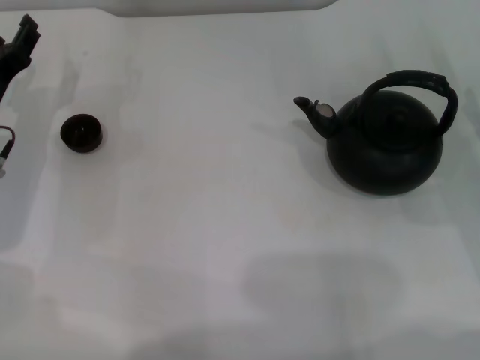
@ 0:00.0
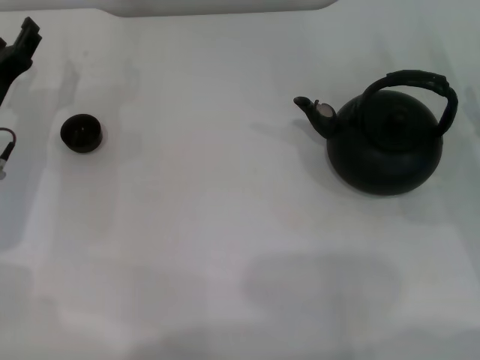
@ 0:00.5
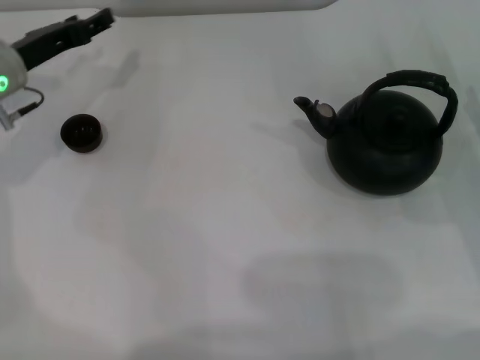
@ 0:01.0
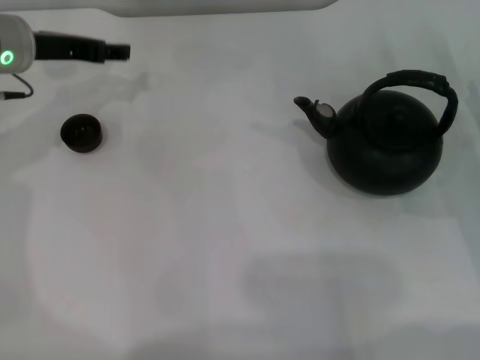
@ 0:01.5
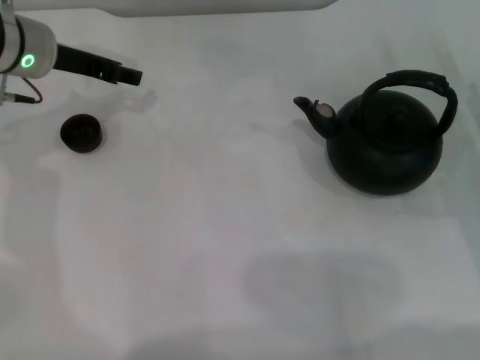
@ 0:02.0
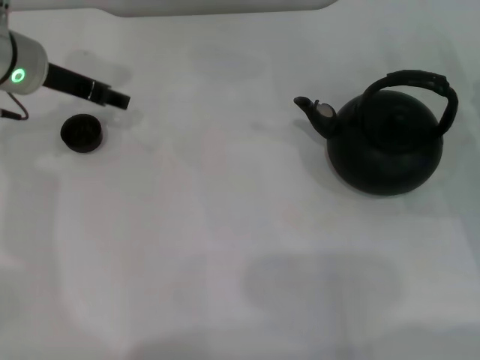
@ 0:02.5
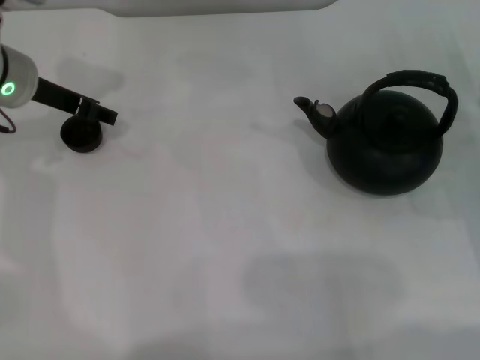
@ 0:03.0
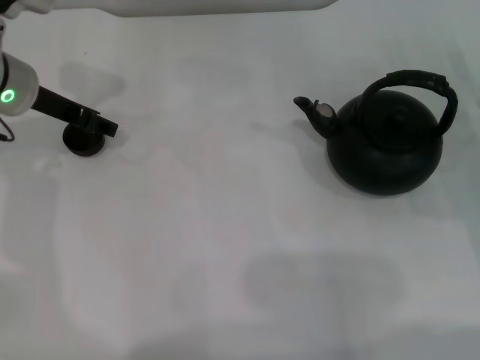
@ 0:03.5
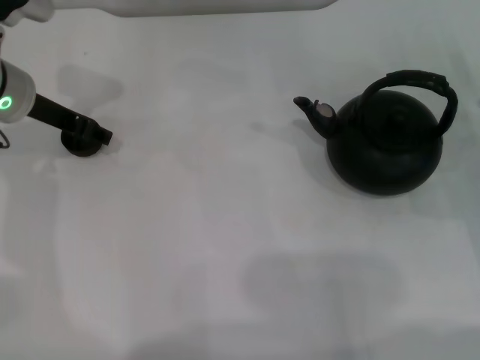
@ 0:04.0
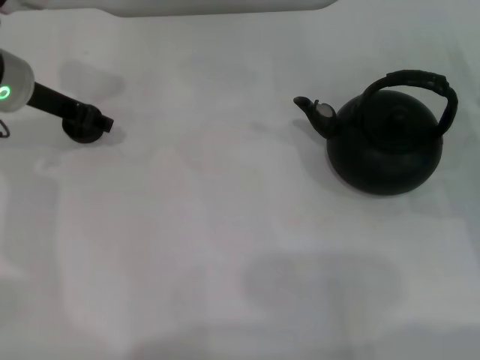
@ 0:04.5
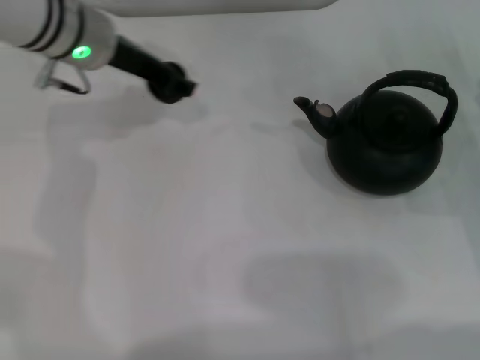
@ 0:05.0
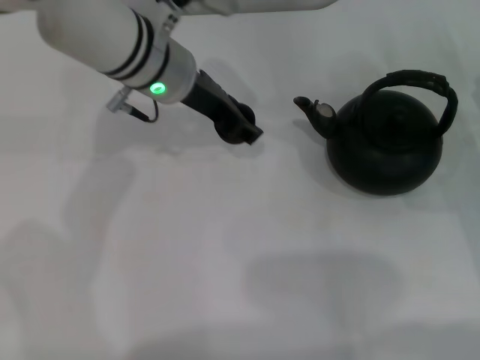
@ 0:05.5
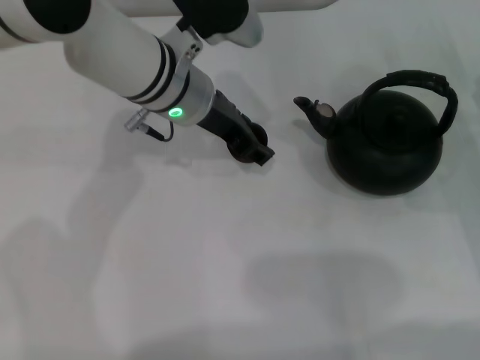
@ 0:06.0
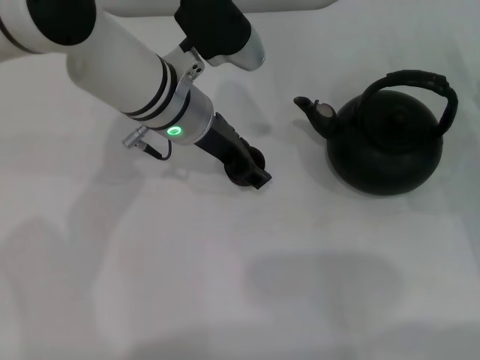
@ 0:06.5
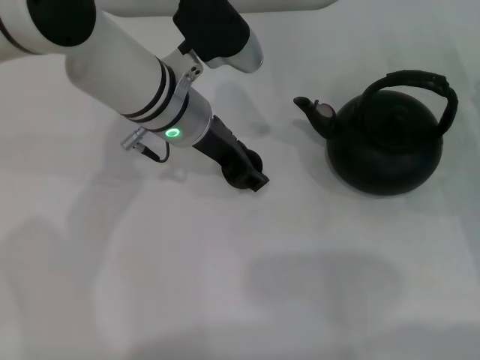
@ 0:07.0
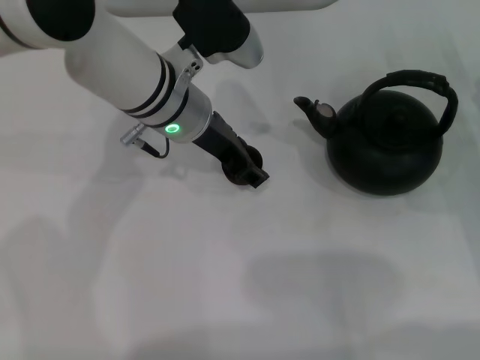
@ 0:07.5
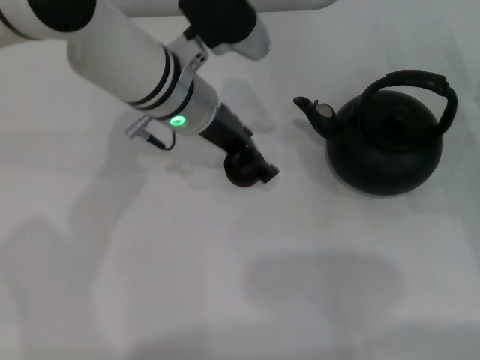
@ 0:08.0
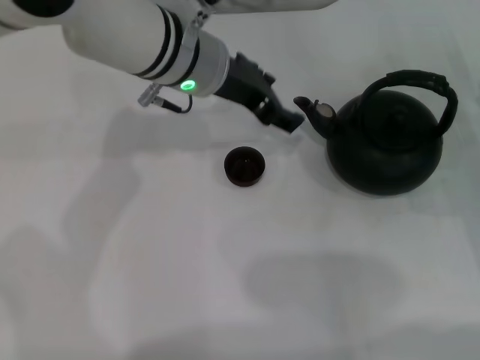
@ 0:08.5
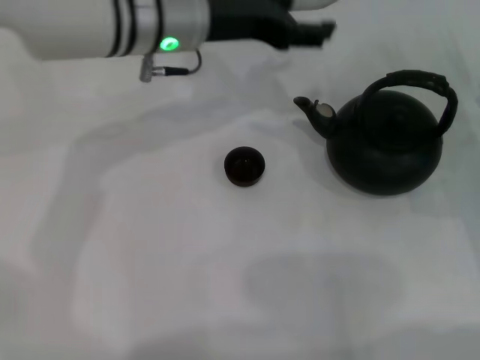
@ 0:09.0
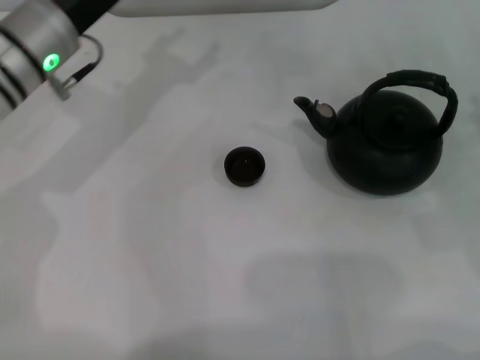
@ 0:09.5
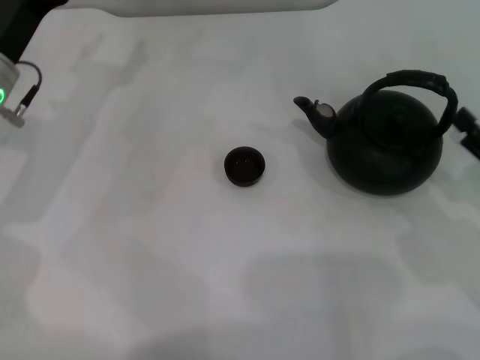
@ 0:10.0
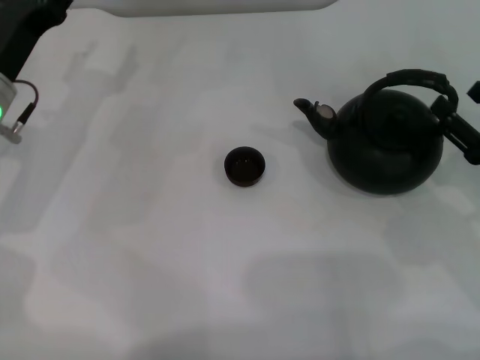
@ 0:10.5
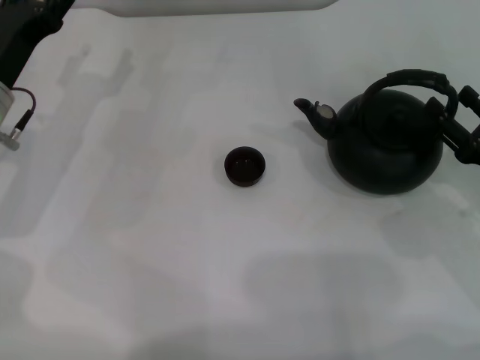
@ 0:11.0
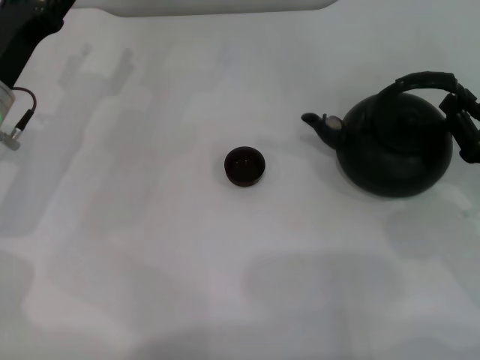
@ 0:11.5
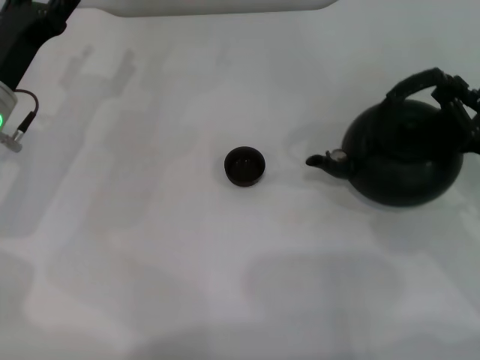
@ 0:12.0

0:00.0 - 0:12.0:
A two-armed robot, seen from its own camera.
Task of the whole recording: Grasp the handle of the teapot with one hand and pour tea into the teacup.
Step, 0:00.0 - 0:04.5: Pick up the teacup with the left gripper.
Step, 0:05.0 - 0:08.0: Place the teacup in the center of view with the left gripper.
0:00.0 - 0:02.0: The left gripper travels upward, forward and to the right by approximately 15 cm.
0:02.0 - 0:04.0: The grippers move only a little.
0:04.0 - 0:06.0: The left gripper moves to the right, roughly 15 cm.
0:06.0 - 0:08.0: The left gripper opens.
0:08.0 - 0:10.0: The left gripper is displaced to the left by some 15 cm; the right gripper is displaced backward by roughly 5 cm.
0:10.0 - 0:12.0: The right gripper closes.

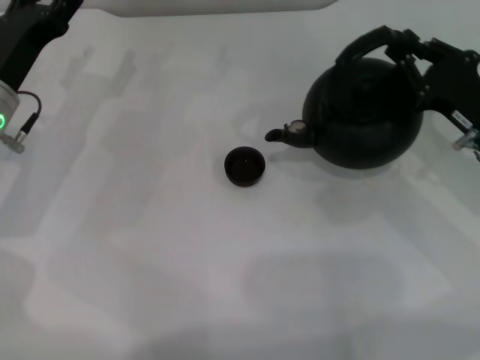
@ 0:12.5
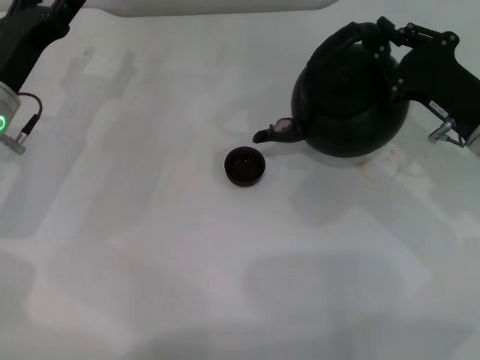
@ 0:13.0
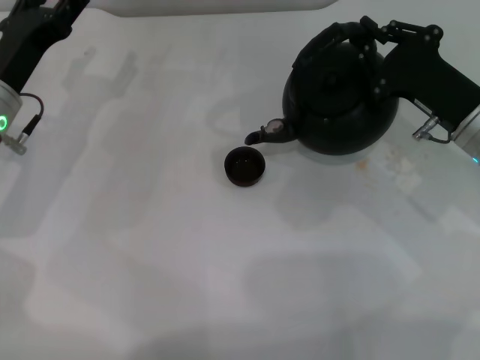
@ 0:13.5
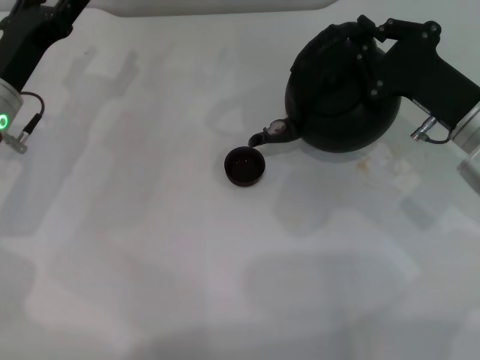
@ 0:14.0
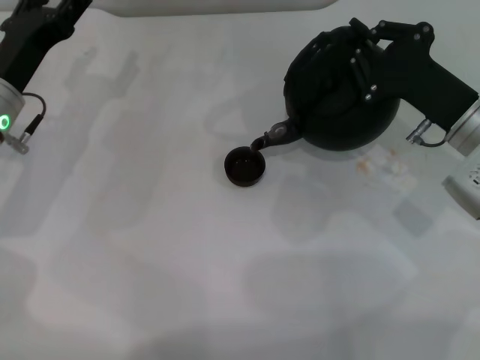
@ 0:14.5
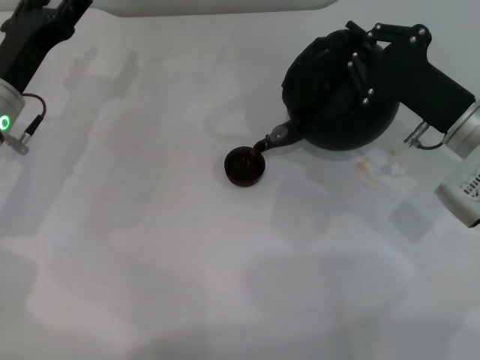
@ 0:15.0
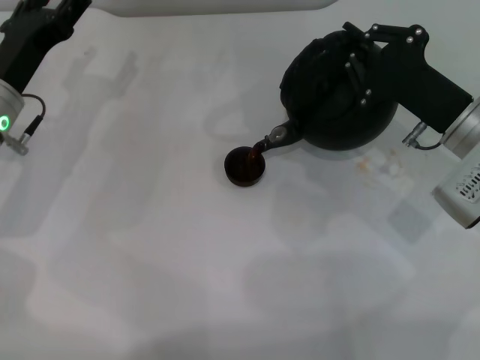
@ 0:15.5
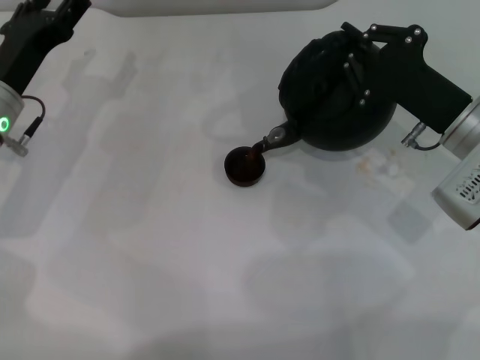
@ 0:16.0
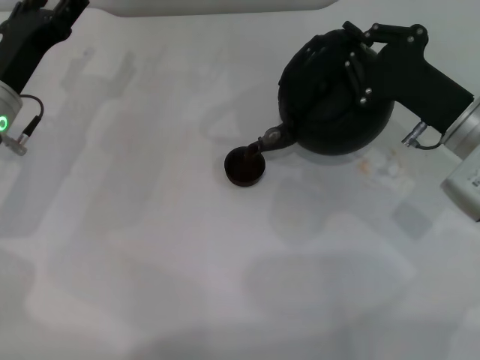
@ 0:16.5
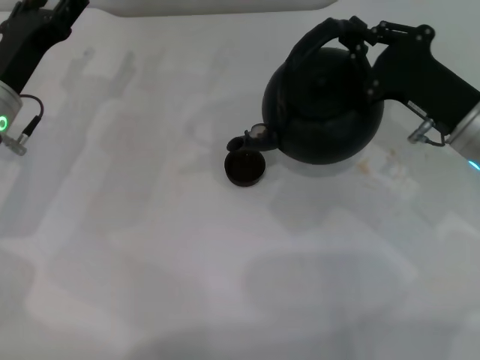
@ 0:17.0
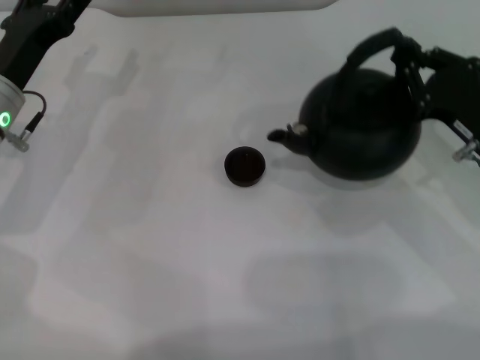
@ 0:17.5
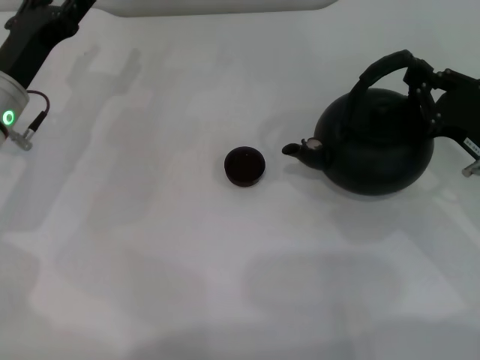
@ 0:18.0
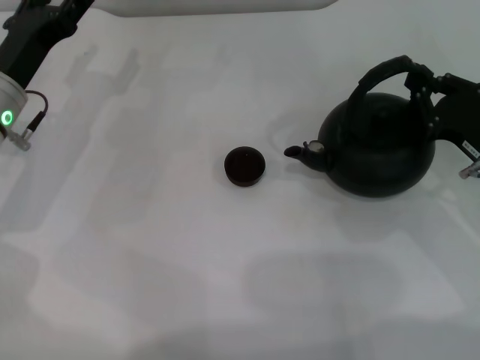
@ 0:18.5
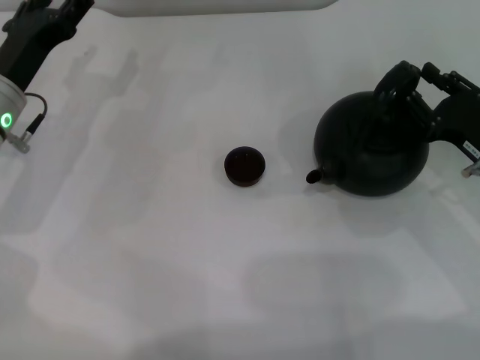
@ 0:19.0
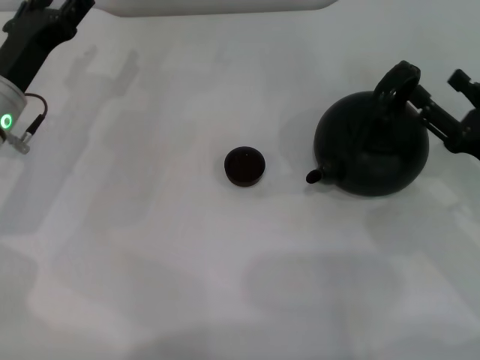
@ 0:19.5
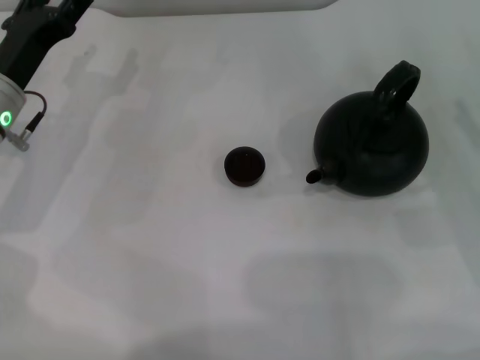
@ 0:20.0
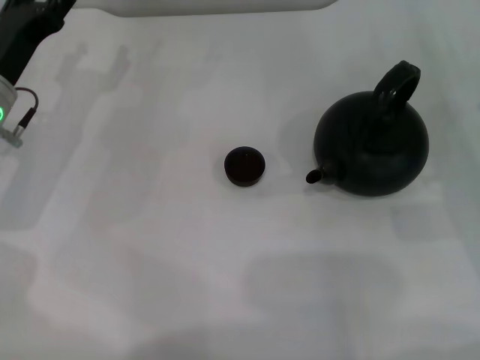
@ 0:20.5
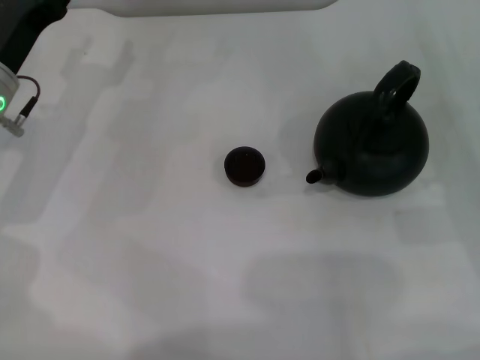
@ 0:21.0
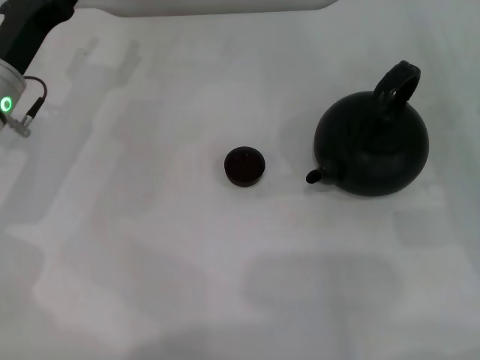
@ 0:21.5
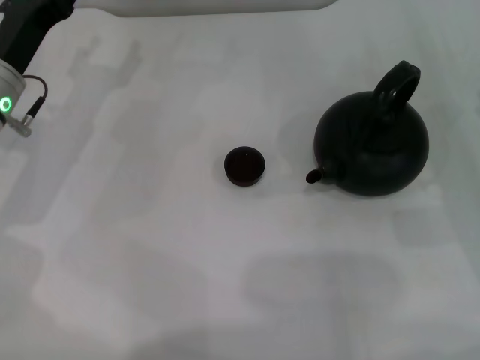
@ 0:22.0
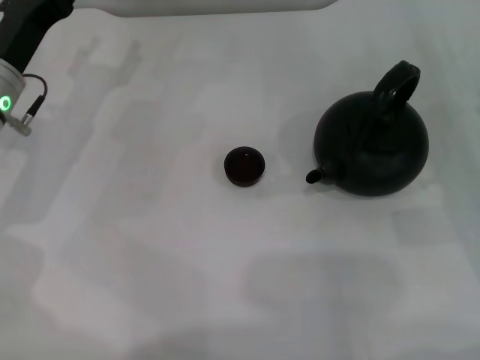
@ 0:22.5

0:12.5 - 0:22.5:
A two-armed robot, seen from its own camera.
Task of the whole recording: Grasp the handle of the teapot with one hand and pour tea into the teacup.
Step, 0:12.5 - 0:17.0: Pour tea into the teacup with the right gripper.
Step, 0:17.5 - 0:19.5: Put down the teapot with the right gripper.
0:14.5 - 0:16.5: There are only small adjustments of the grippers.
0:16.5 - 0:18.5: The right gripper heads to the right, covering about 5 cm.
0:18.5 - 0:20.5: The right gripper is displaced to the right by approximately 5 cm, and opens up.
0:20.5 - 0:22.5: Both grippers stay put.
